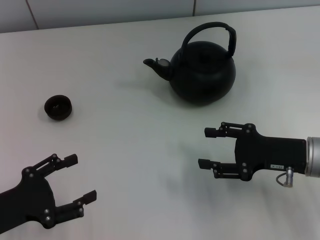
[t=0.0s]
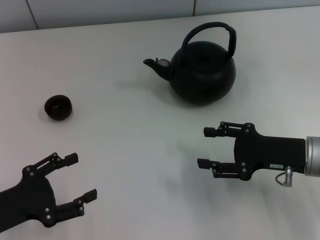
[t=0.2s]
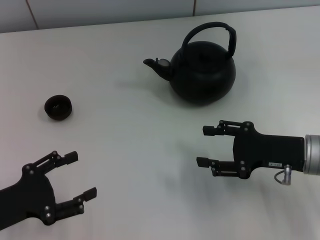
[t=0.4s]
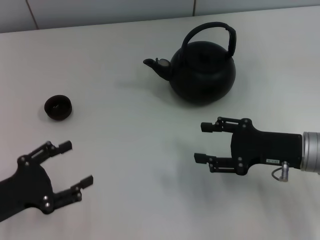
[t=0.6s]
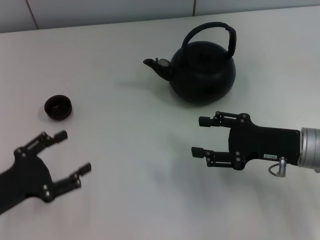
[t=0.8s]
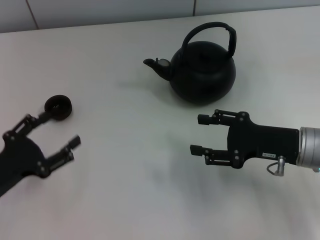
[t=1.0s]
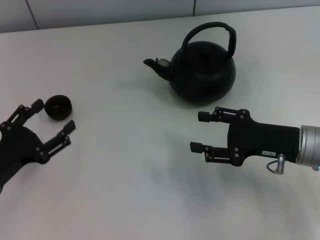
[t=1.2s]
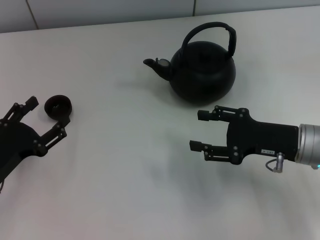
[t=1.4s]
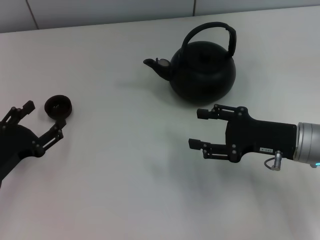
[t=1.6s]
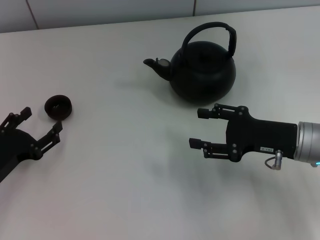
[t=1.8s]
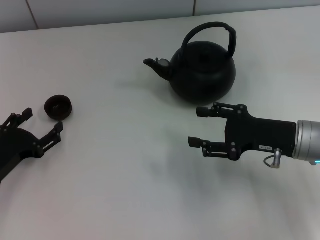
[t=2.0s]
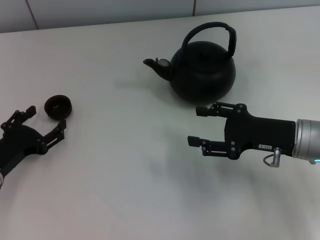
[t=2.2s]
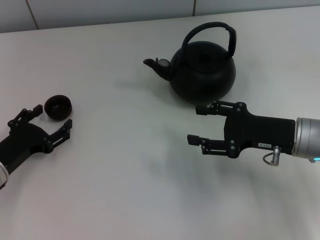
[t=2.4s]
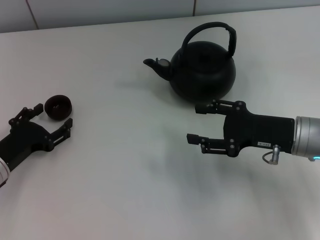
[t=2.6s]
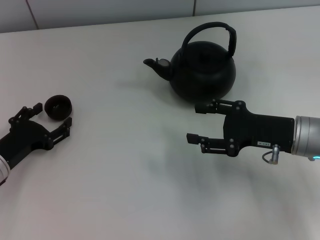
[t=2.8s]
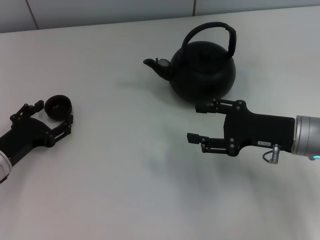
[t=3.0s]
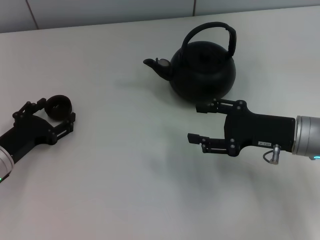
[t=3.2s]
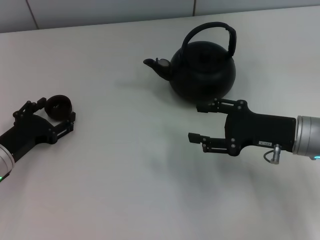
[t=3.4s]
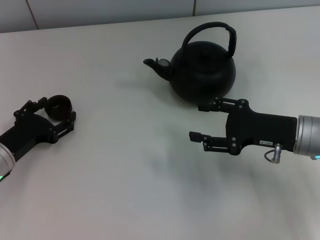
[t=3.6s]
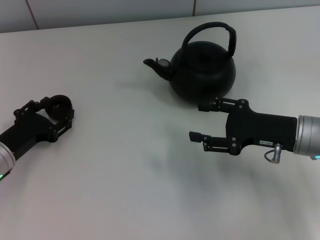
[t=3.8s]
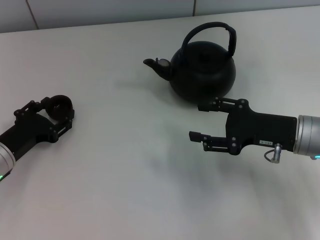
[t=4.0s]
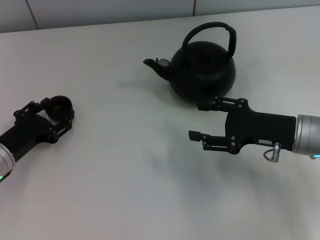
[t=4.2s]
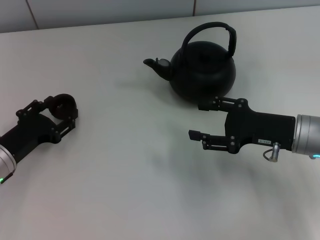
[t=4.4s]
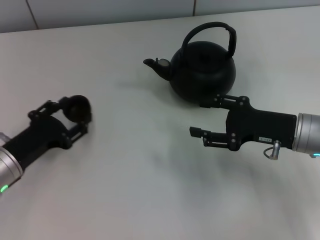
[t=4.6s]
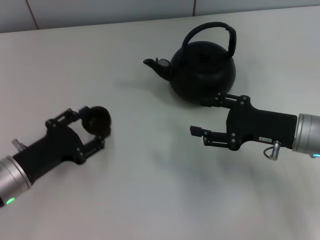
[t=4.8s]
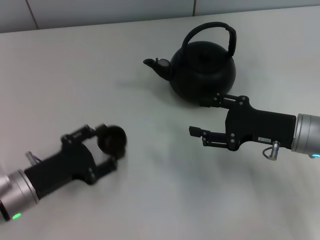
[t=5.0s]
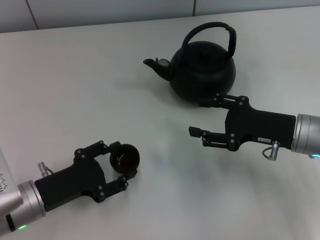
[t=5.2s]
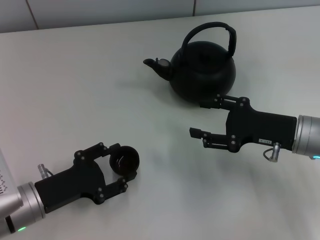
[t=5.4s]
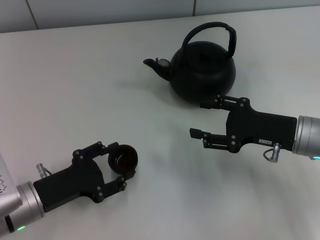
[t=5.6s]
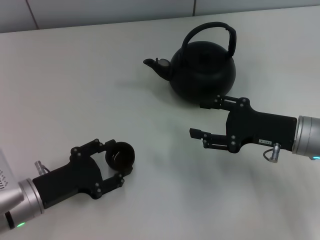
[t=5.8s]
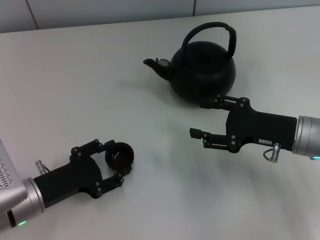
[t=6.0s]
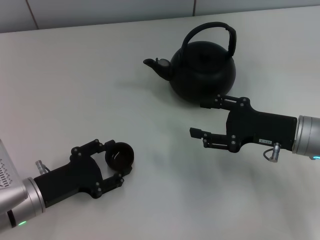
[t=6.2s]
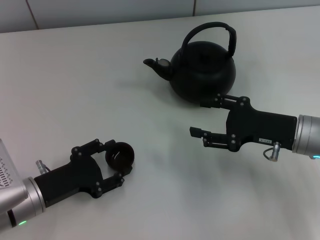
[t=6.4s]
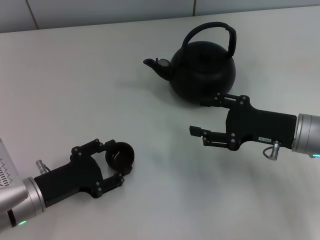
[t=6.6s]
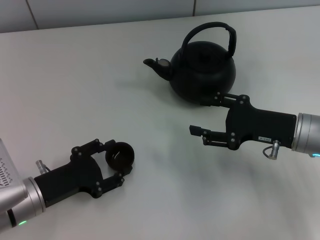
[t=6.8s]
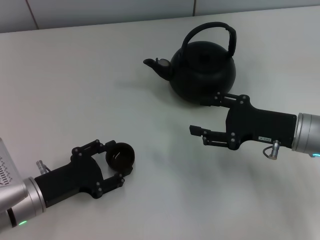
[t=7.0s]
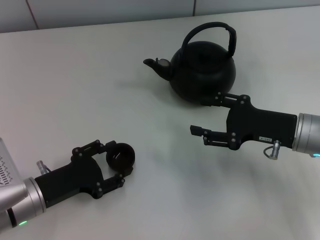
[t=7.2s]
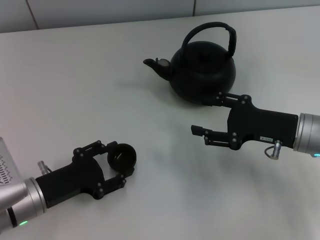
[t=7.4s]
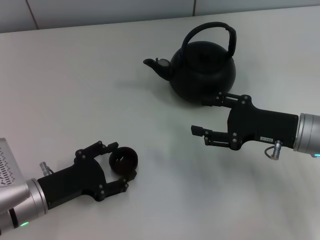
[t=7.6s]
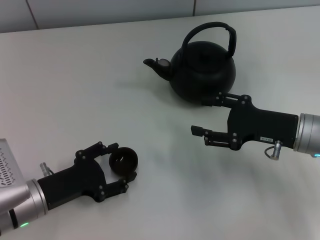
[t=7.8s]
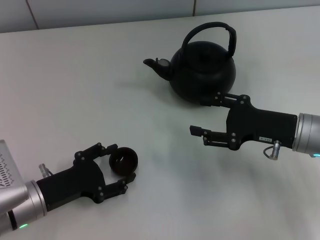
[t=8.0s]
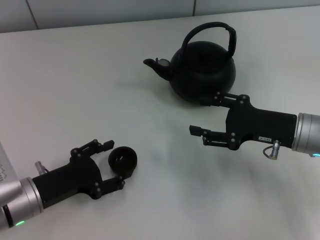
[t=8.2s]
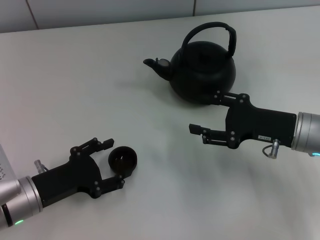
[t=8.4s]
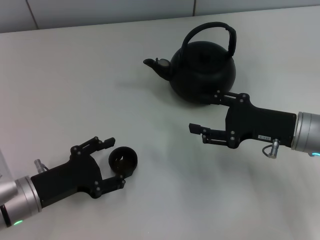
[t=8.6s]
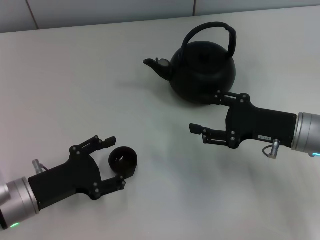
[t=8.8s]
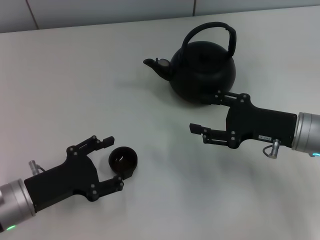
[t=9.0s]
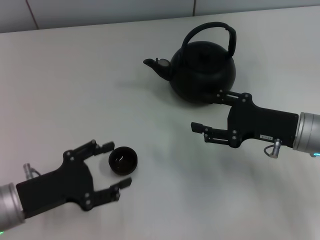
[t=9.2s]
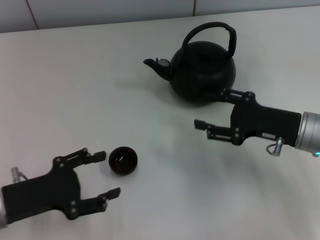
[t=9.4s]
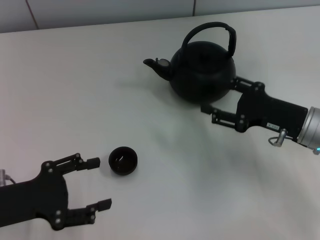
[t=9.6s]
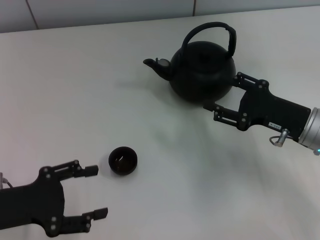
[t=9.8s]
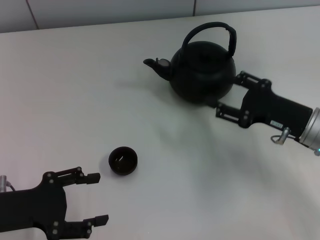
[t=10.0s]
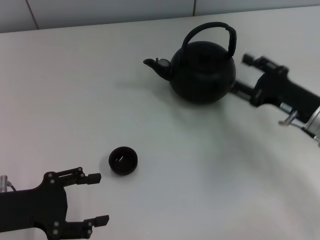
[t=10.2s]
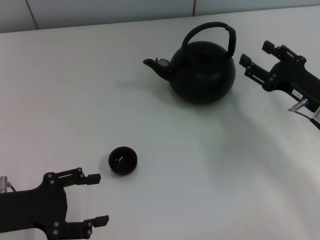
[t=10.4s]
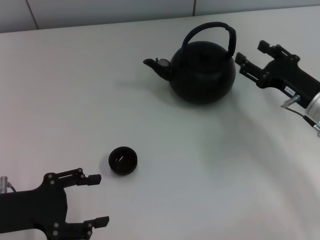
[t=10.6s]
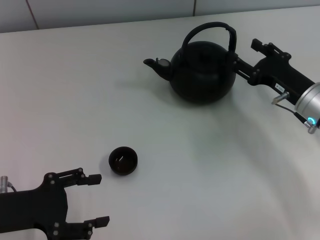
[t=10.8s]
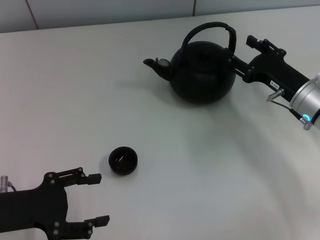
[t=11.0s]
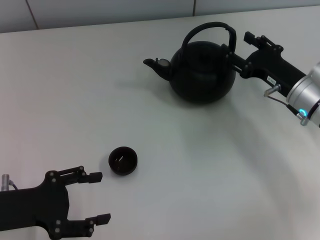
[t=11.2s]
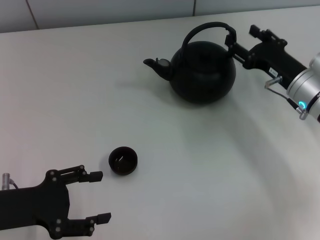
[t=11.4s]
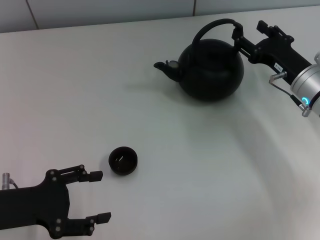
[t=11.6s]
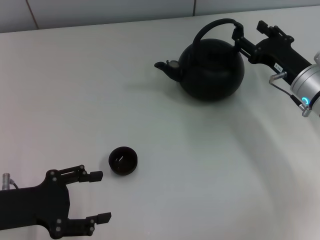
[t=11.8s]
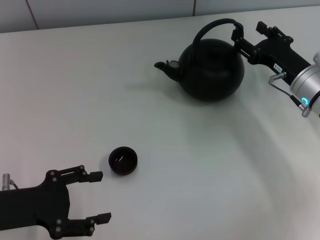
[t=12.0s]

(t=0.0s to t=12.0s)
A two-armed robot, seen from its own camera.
Task of the whole recording: Grasp the handle of the teapot with one hand and pour tea into the teacup.
Step, t=0.0s - t=4.4s: Pick up the teacup with the left gripper.
Step, t=4.6s - t=8.4s: Place the teacup in the center of view with the left gripper.
t=0.0s - t=1.6s: The left gripper changes place by about 5 cm.
t=1.6s - t=3.0s: There are only small adjustments of the grippers.
t=3.0s - t=4.4s: The left gripper closes up.
t=4.4s - t=6.0s: The left gripper moves approximately 5 cm.
t=6.0s - t=7.6s: Both grippers stay put.
t=7.6s - t=9.0s: The left gripper opens up.
t=9.0s - t=10.4s: The left gripper changes place by roughly 5 cm.
t=10.4s - t=12.0s: The right gripper changes place by about 5 cm.

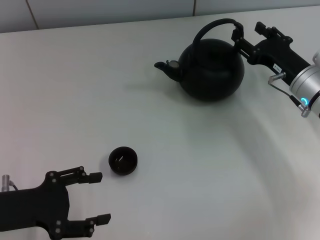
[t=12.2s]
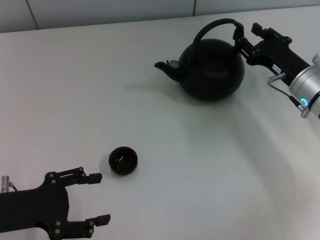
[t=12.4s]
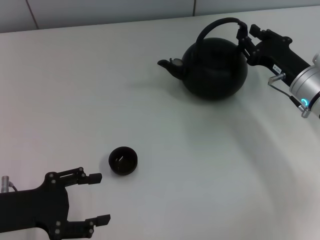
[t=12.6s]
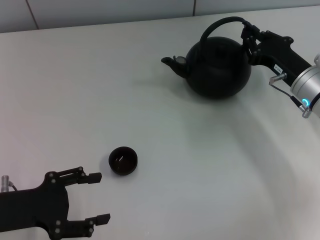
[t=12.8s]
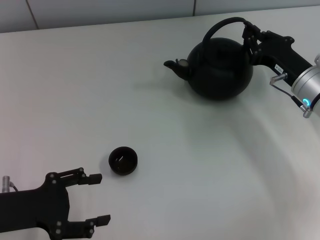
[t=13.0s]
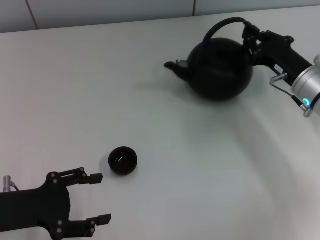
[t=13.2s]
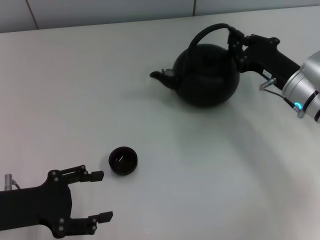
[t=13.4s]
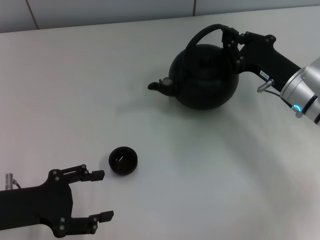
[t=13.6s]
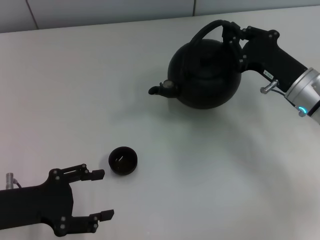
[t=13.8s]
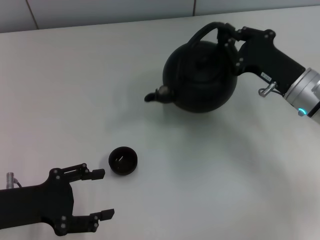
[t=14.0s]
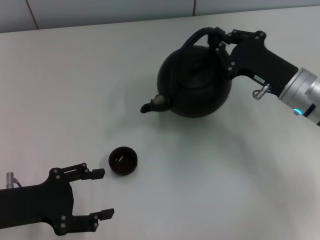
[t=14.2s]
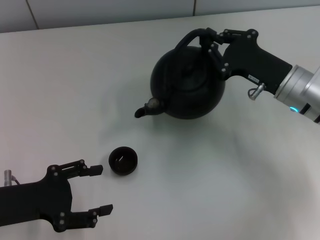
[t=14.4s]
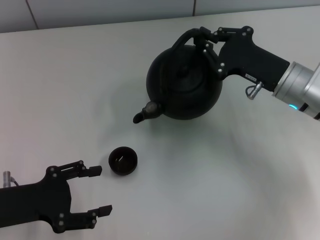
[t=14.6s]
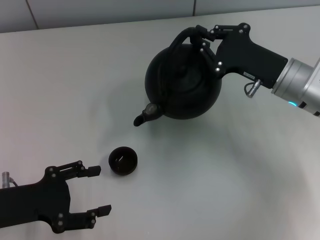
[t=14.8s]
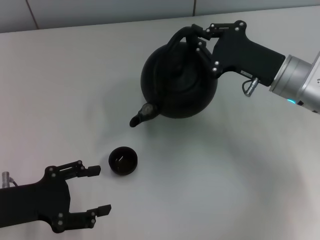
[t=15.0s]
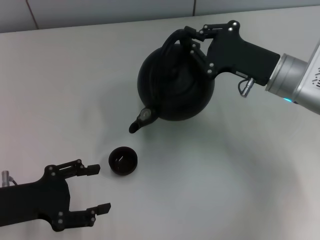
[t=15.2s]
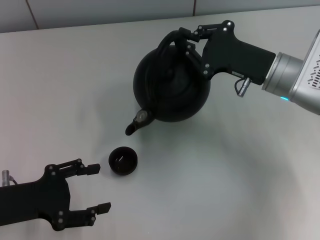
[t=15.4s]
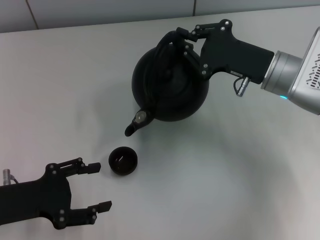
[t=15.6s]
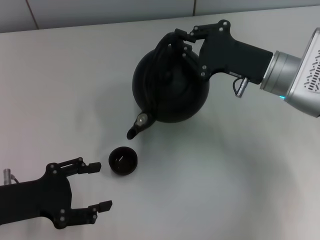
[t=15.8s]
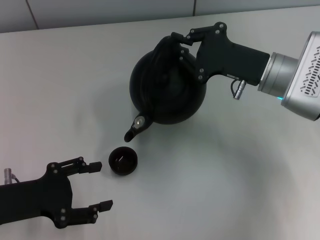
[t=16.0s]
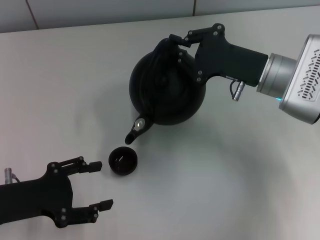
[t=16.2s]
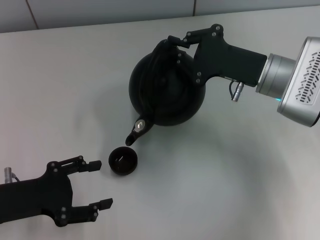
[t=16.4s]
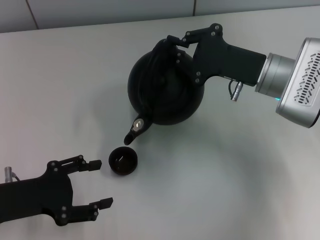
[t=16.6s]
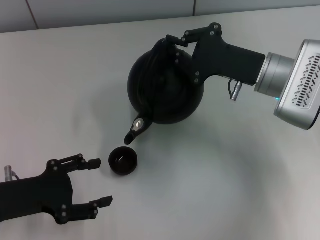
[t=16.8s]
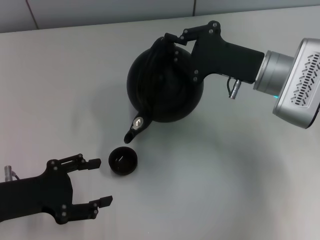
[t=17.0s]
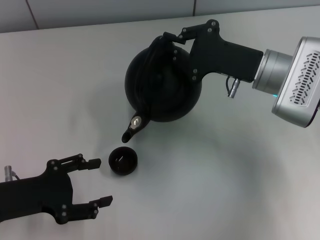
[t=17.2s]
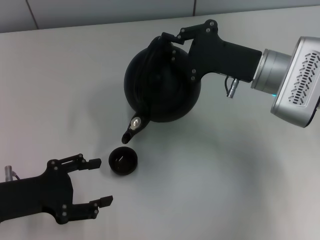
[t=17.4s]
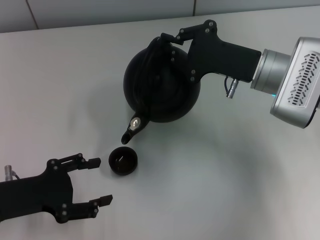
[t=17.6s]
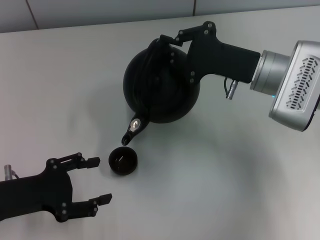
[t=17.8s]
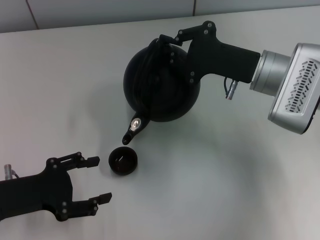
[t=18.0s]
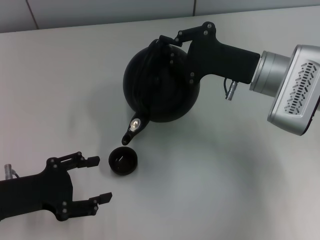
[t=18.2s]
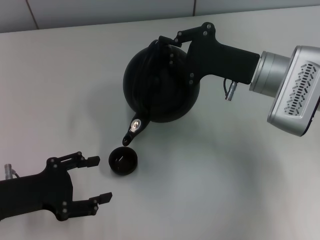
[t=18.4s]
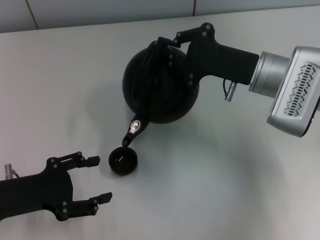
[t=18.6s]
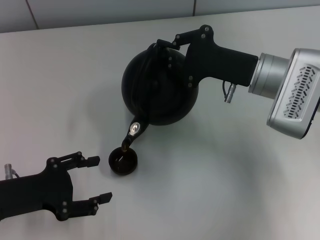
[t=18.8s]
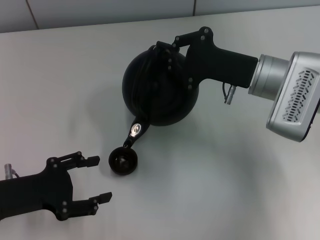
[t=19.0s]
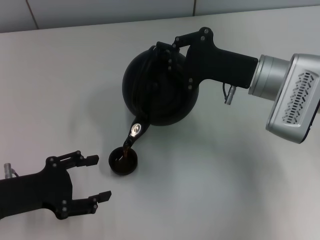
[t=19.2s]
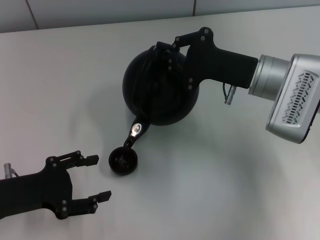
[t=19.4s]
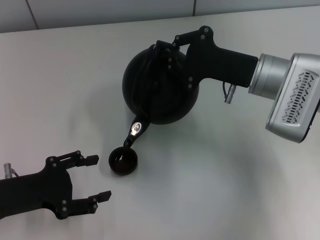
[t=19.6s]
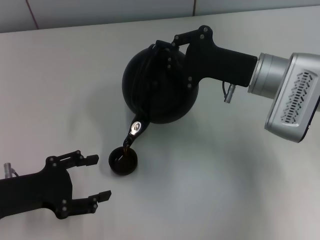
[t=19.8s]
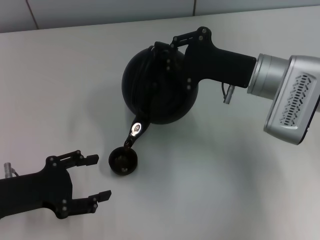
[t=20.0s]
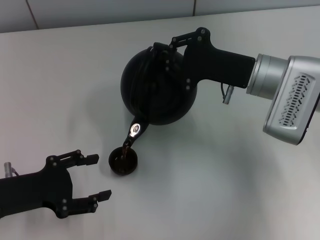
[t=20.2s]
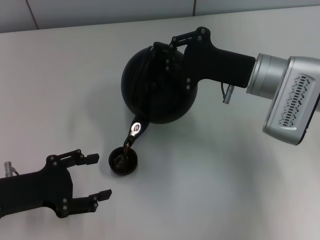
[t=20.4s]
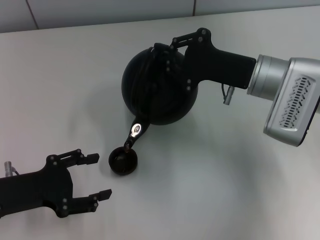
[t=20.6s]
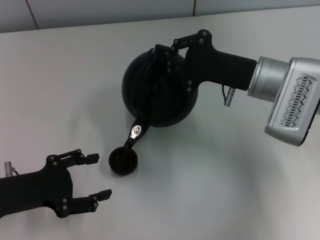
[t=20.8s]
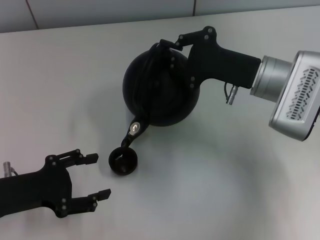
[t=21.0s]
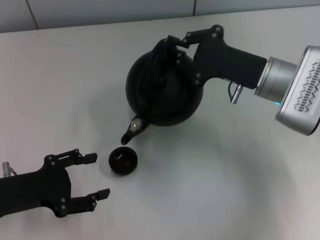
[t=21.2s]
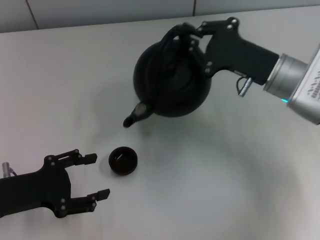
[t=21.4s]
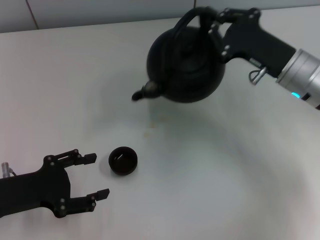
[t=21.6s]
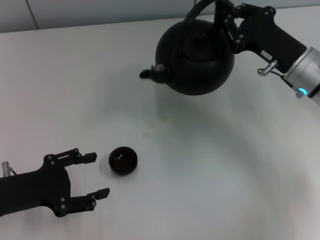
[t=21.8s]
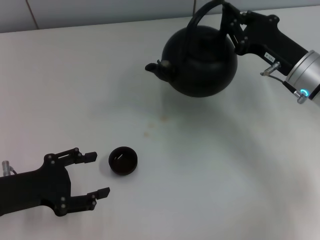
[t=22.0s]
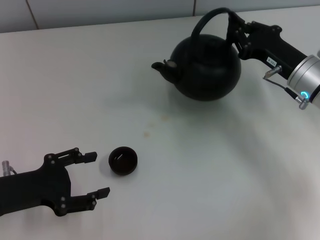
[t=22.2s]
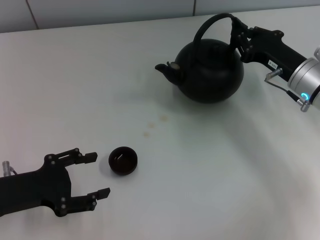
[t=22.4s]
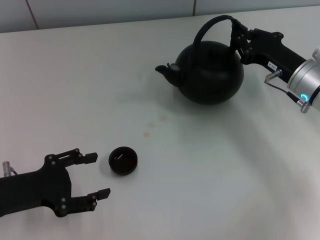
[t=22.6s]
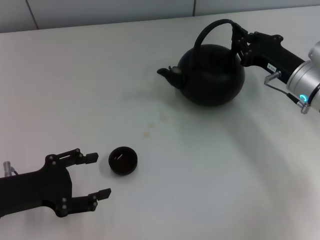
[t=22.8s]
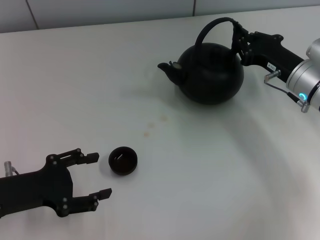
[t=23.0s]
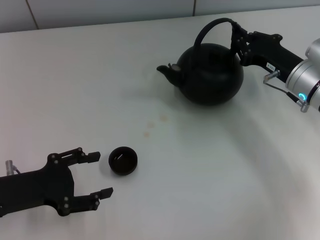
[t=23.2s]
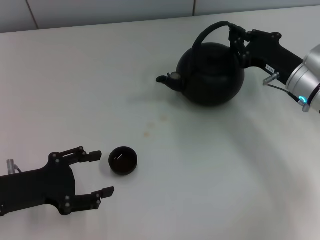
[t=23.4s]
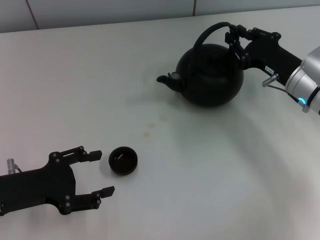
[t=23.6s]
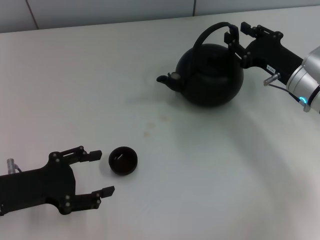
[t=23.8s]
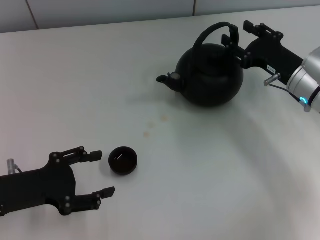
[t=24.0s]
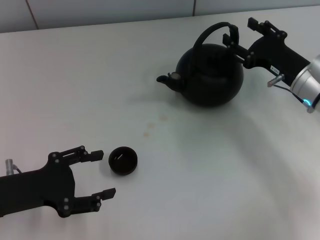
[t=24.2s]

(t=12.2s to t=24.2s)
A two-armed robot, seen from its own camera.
Task of the whole recording: Grasp the handle of the teapot with one hand and pour tea into the teacup.
Step, t=21.6s - t=24.2s: Put down the teapot with the right gripper.
t=12.2s - t=13.8s: The right gripper closes up.
t=15.2s - t=18.2s: The grippers make only small movements.
t=18.2s - t=21.2s: The grippers move only a little.
t=21.2s - t=22.6s: The right gripper shifts about 5 cm to the right.
t=22.6s - t=24.2s: The right gripper opens.
